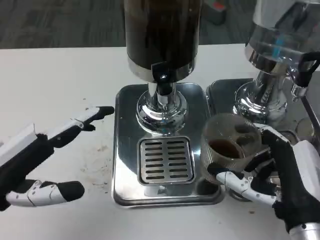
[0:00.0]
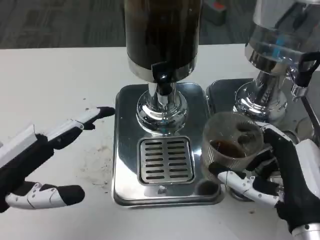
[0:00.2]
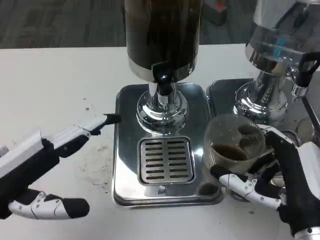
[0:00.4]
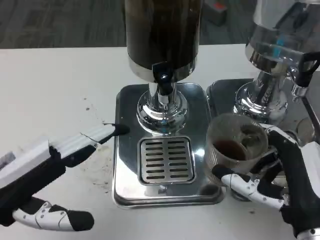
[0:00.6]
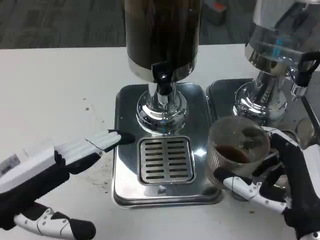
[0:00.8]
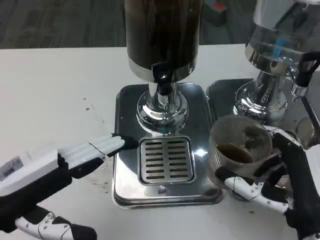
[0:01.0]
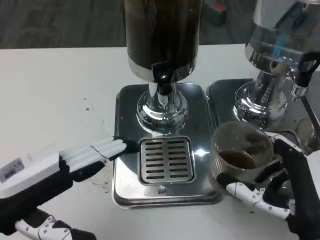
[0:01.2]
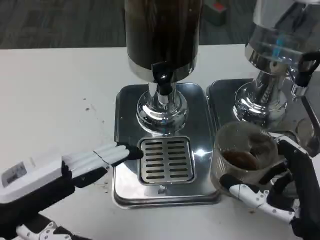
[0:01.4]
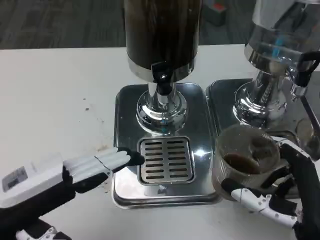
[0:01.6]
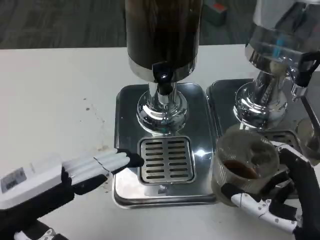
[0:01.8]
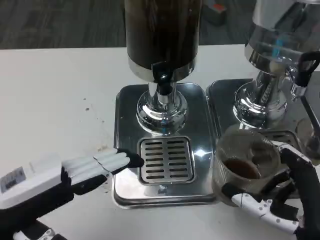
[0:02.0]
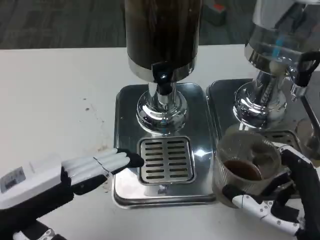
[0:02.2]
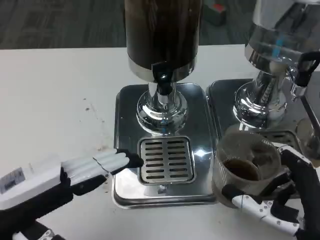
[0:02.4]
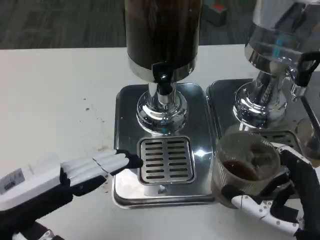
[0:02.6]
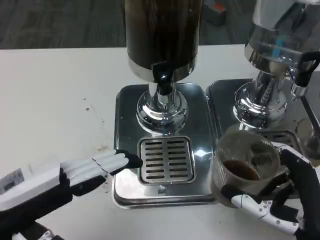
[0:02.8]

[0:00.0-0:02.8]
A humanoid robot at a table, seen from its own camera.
Task of the whole recording: Grasp the cup under the faucet to collect the drink, then remove the cup.
0:00.0 to 0:02.8: The hands make only small movements.

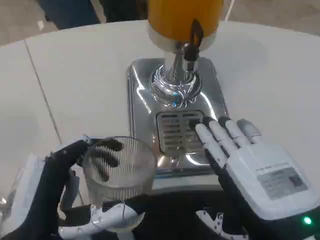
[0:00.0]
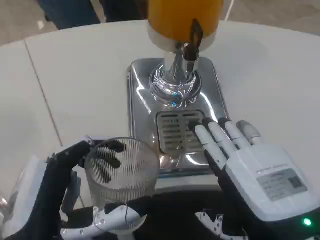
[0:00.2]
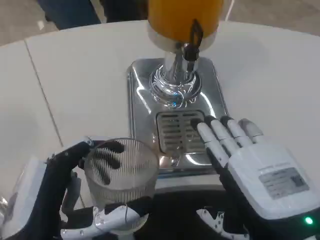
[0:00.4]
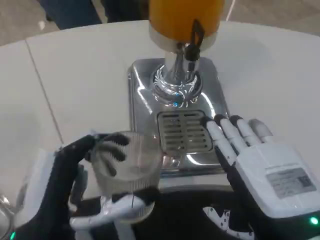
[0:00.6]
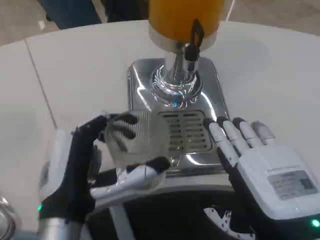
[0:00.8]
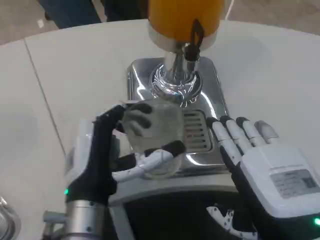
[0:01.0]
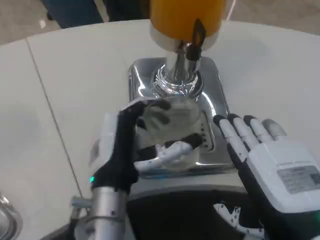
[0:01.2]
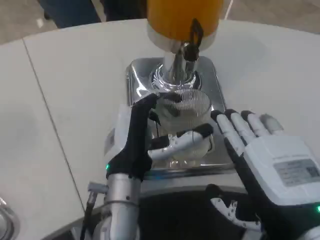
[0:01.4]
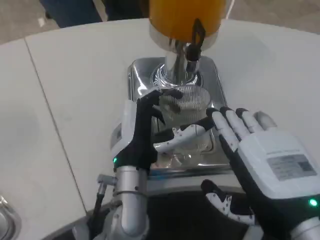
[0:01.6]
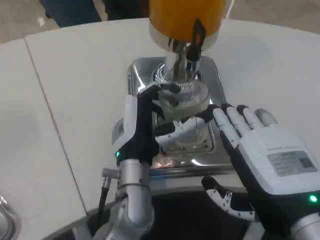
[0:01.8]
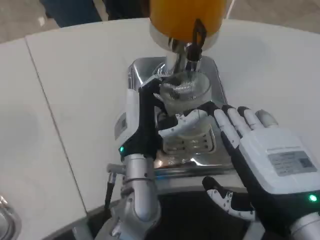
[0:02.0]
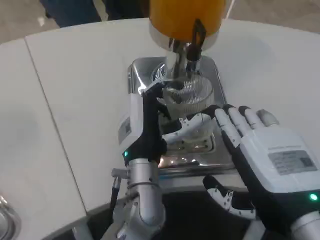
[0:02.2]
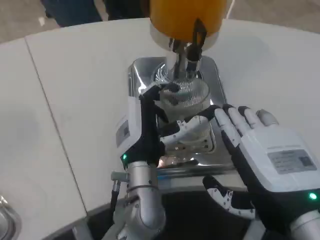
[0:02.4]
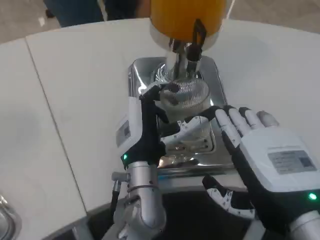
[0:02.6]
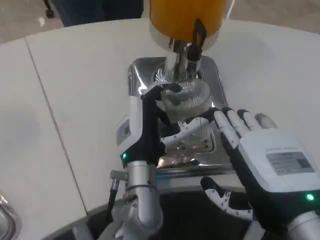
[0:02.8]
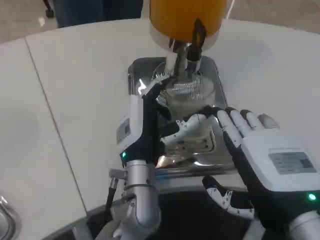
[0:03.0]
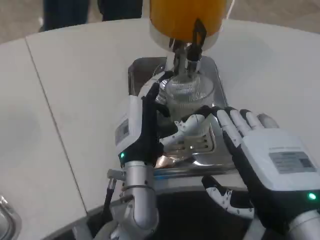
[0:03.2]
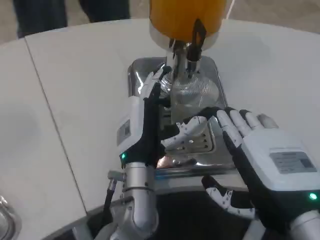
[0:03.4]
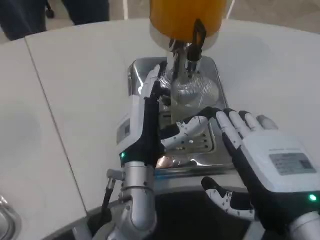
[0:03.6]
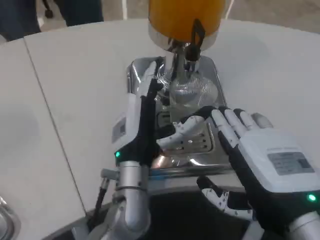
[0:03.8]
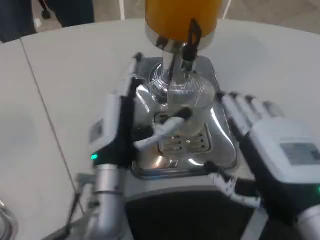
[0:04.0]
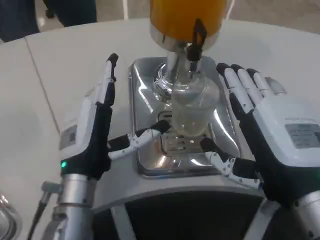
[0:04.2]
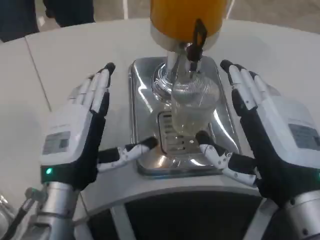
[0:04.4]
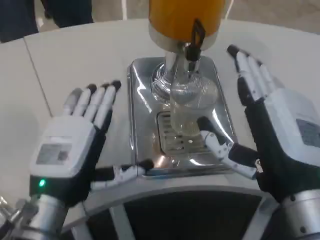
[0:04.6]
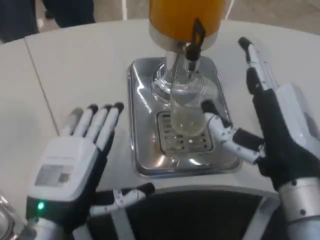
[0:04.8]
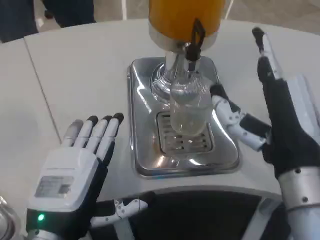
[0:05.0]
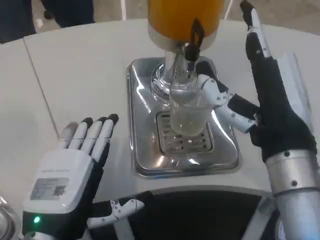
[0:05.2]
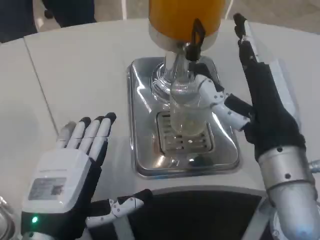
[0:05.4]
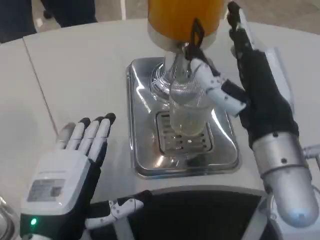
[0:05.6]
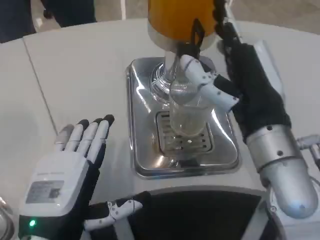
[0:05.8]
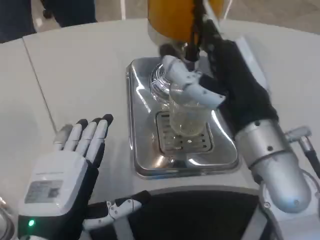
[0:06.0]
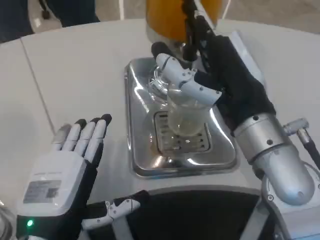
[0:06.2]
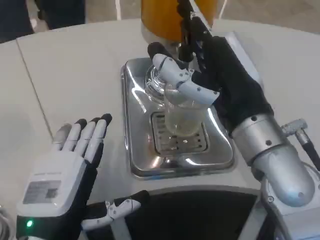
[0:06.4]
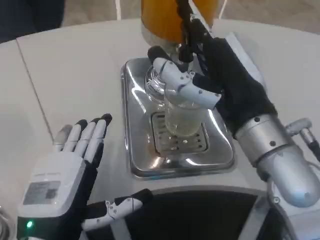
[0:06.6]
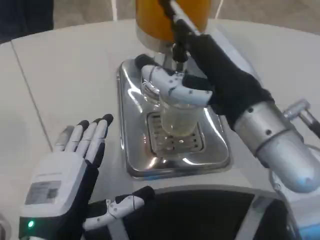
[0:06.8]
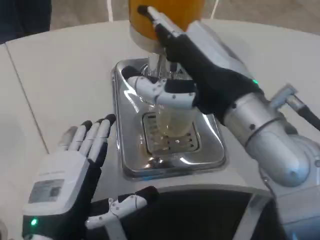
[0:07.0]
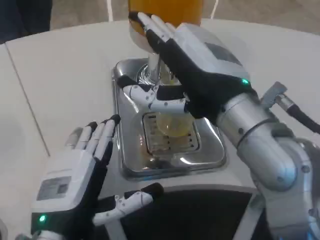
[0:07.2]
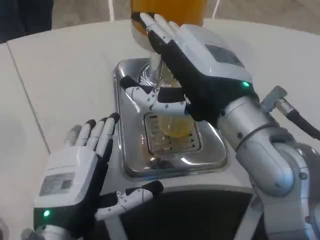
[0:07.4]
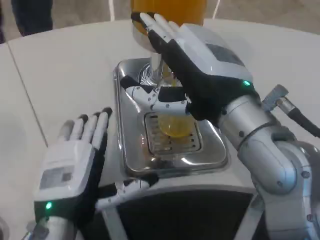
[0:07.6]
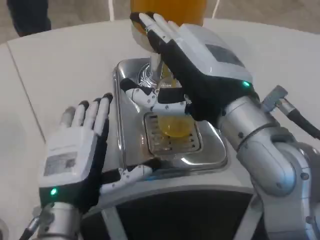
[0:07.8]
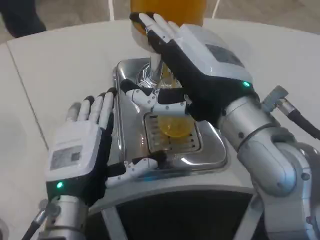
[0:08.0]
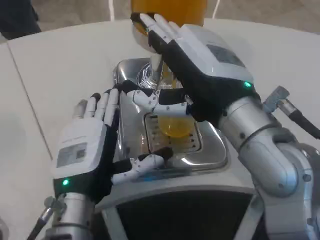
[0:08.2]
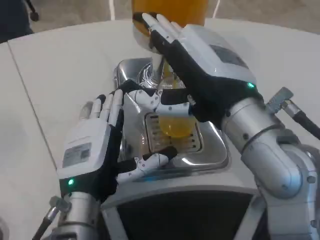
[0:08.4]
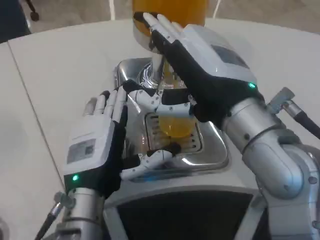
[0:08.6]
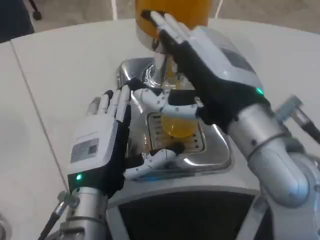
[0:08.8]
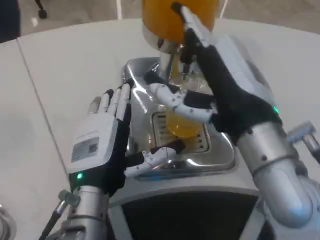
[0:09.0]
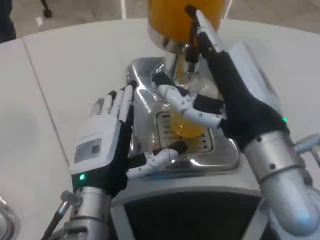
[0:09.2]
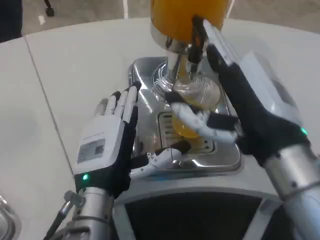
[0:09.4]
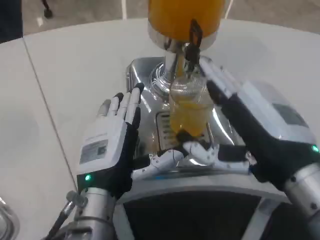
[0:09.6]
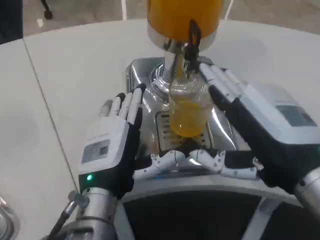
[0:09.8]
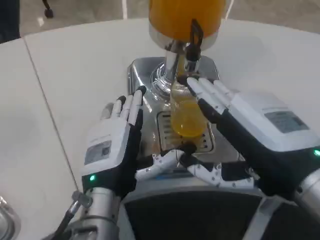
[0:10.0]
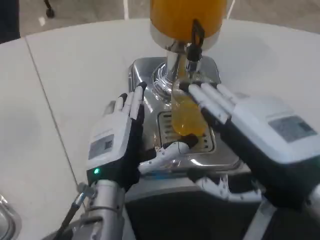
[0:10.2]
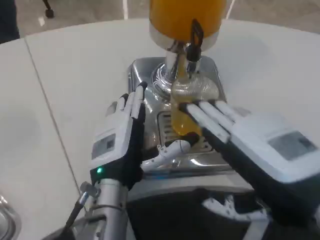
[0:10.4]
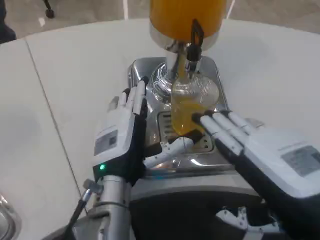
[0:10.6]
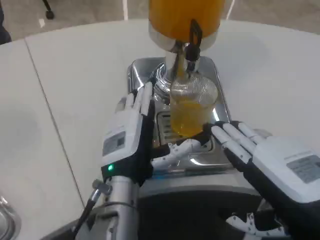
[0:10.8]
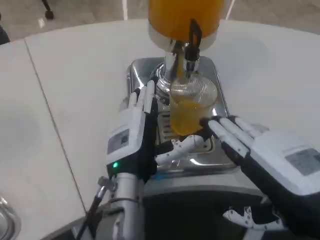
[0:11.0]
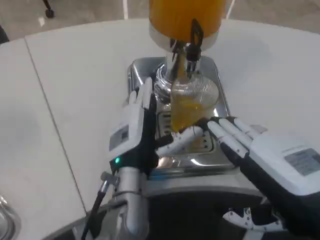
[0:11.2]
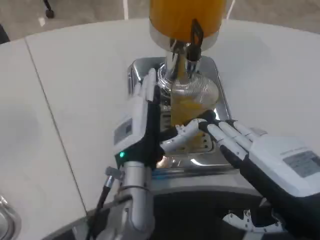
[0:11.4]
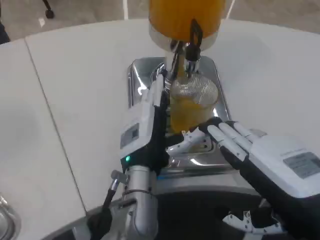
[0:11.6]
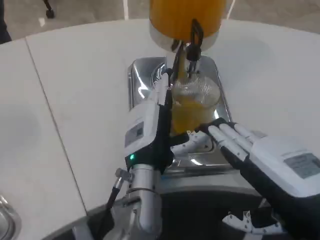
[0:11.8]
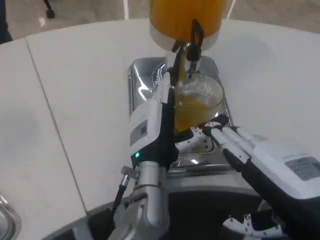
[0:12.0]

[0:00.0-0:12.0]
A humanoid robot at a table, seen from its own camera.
Task of the whole recording: Grasp the cup under the faucet to collect the drink, then remove the cup.
0:00.0 to 0:01.6: The left hand travels forward and to the right by about 20 cm.
0:01.6 to 0:03.0: The hands move only a little.
0:03.0 to 0:04.4: The left hand goes some 15 cm to the left and backward.
0:04.4 to 0:06.0: The left hand moves backward, about 10 cm; the right hand moves forward, approximately 5 cm.
0:07.6 to 0:09.0: The left hand ends up some 5 cm from where it was.
0:09.0 to 0:10.4: The right hand heads to the right and backward, covering about 10 cm.
0:10.4 to 0:12.0: The left hand moves to the right, roughly 5 cm.

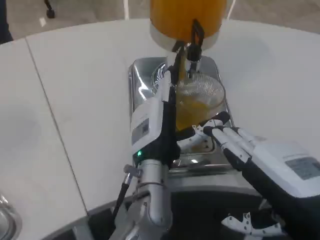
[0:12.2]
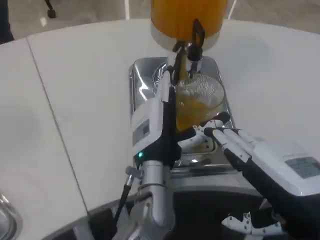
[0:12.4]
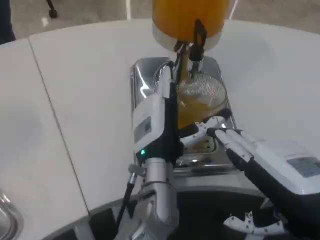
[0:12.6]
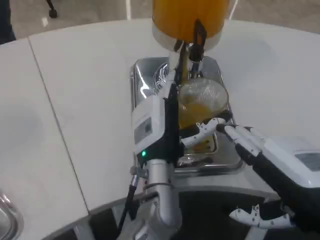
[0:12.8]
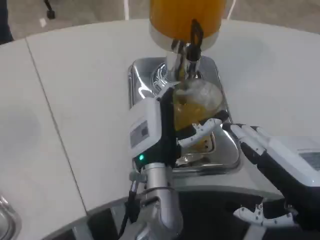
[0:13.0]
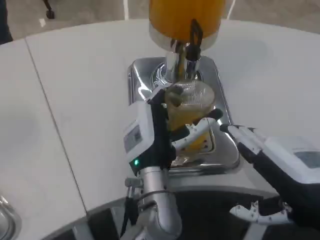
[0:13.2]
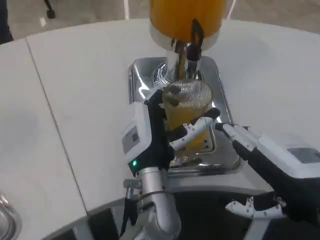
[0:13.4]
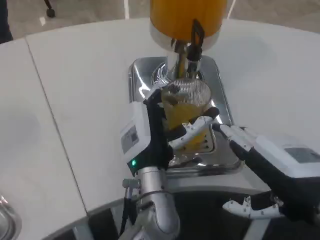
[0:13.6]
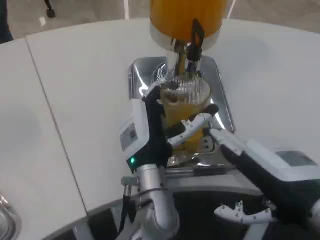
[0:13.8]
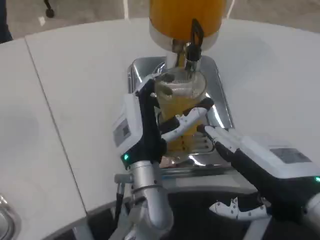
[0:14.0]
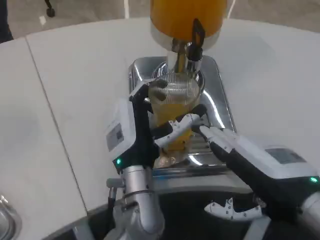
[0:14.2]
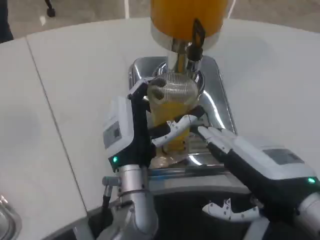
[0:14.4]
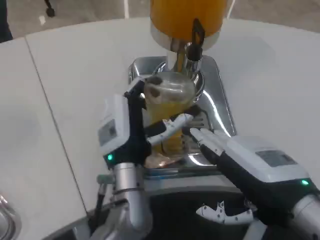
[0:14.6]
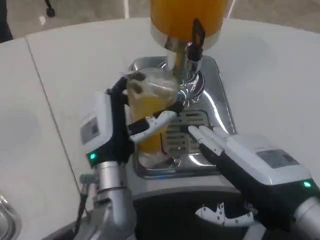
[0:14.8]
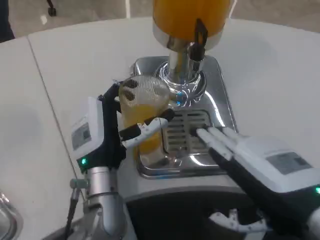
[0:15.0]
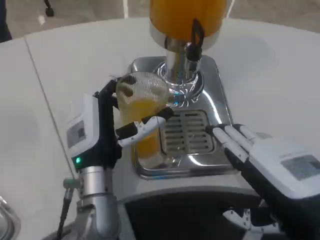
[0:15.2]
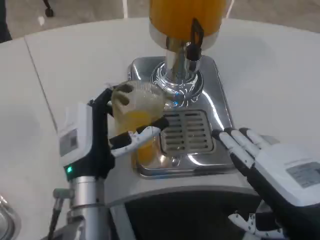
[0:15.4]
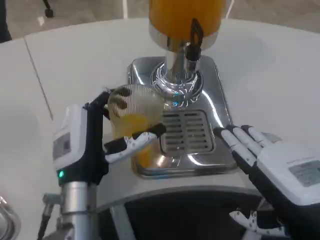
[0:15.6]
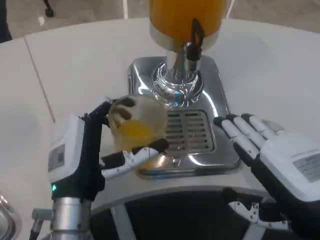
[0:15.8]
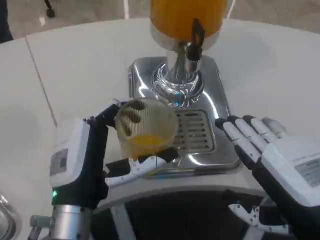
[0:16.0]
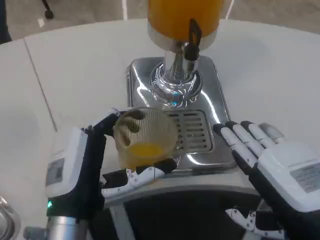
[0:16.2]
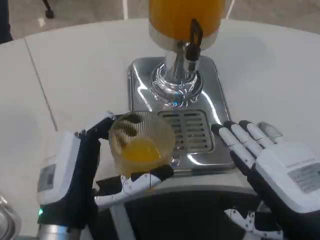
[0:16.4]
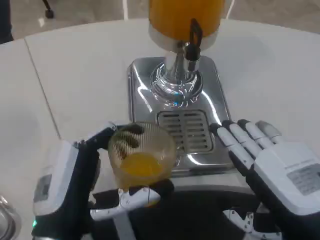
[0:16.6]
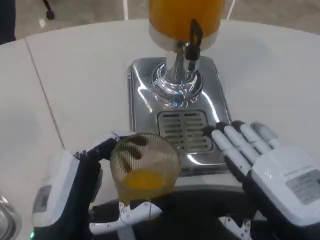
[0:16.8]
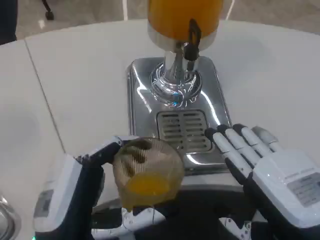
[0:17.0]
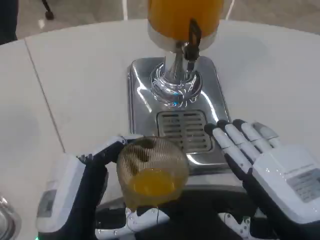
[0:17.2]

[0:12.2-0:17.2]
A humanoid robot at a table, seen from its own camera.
Task of the whole recording: Grasp the cup under the faucet to collect the drink, then remove the cup.
0:12.2 to 0:13.8: The hands make only small movements.
0:13.8 to 0:15.6: The left hand goes some 10 cm to the left.
0:15.6 to 0:17.2: The left hand travels backward by about 10 cm.

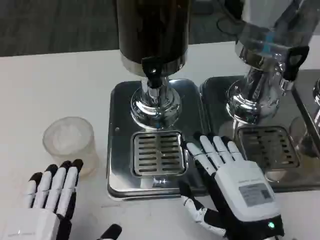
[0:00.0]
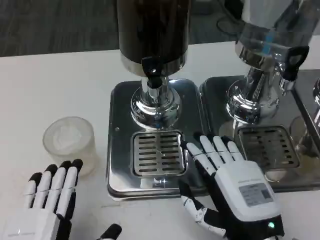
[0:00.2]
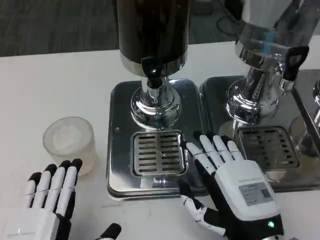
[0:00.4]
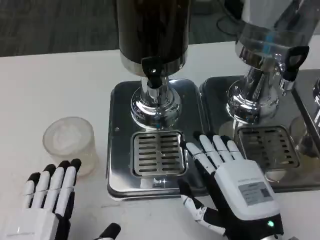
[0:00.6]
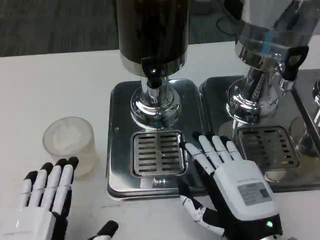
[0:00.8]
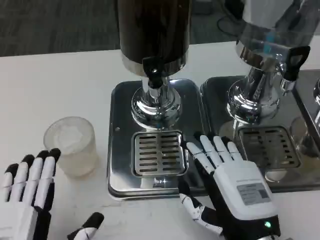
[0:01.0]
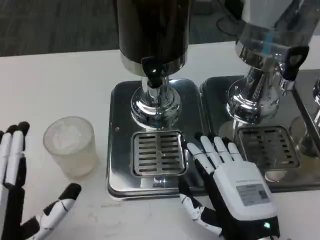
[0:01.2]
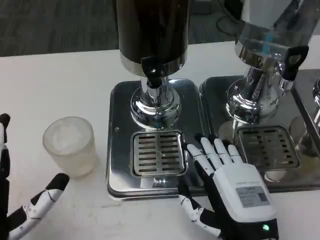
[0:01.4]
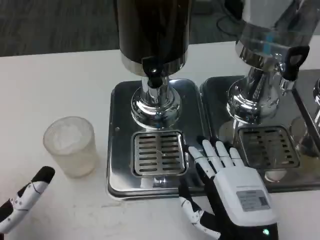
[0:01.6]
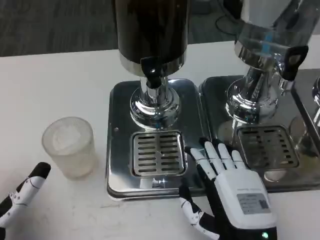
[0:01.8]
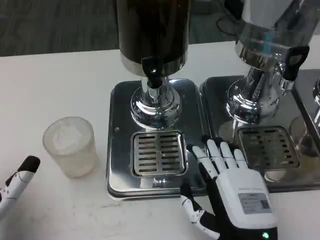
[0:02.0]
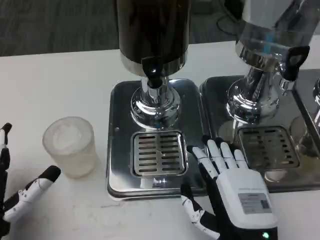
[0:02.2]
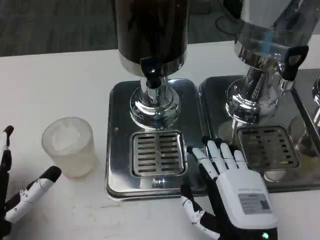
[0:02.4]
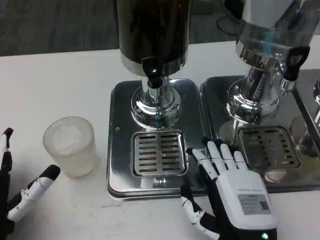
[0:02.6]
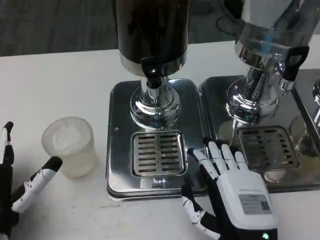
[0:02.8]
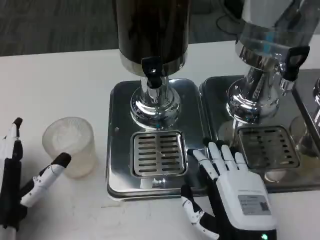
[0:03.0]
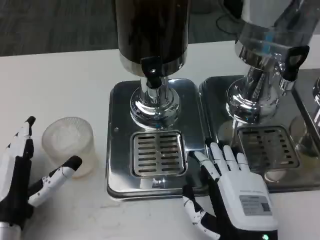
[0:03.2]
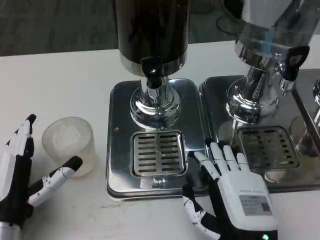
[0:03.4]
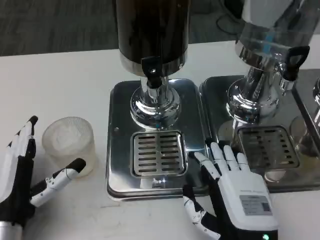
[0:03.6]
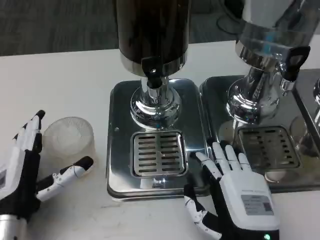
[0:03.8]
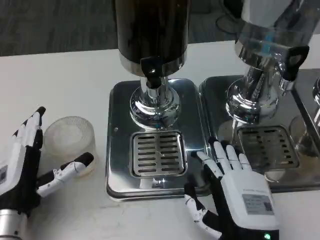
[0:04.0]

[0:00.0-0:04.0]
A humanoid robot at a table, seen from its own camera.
Task of the whole recording: Grasp the cup under the faucet to collect the drink, then remove the cup.
0:00.0 to 0:01.4: The left hand changes place by some 5 cm.
0:01.4 to 0:02.6: The left hand moves approximately 5 cm.
0:02.6 to 0:04.0: The hands make only small movements.
